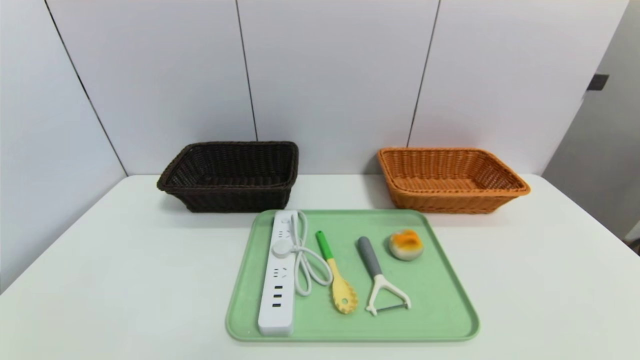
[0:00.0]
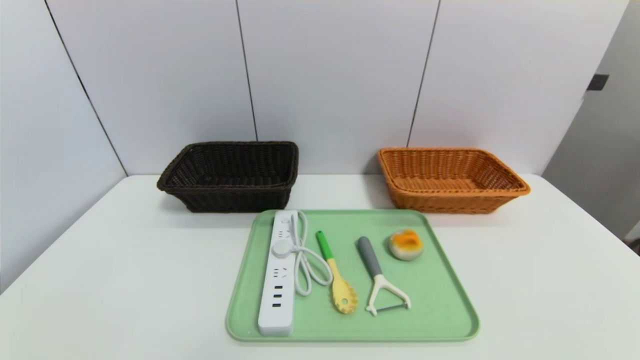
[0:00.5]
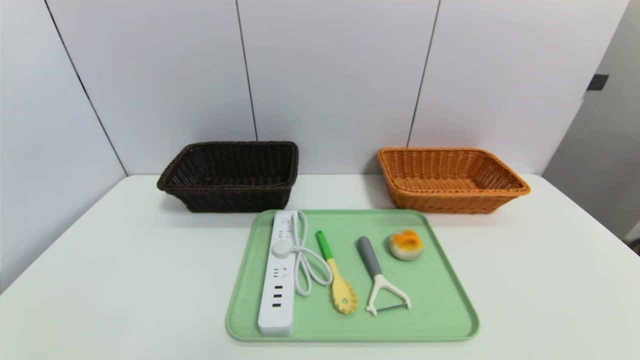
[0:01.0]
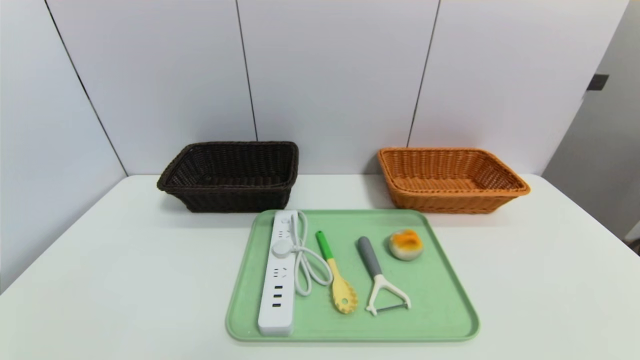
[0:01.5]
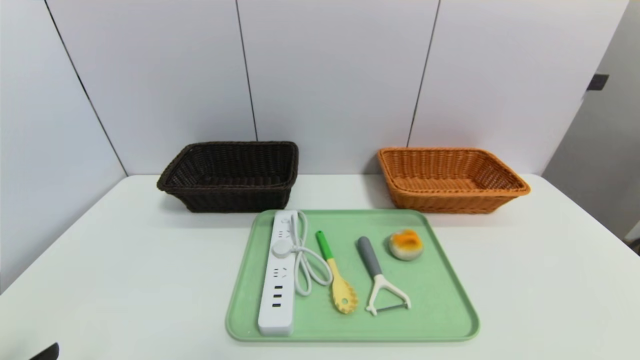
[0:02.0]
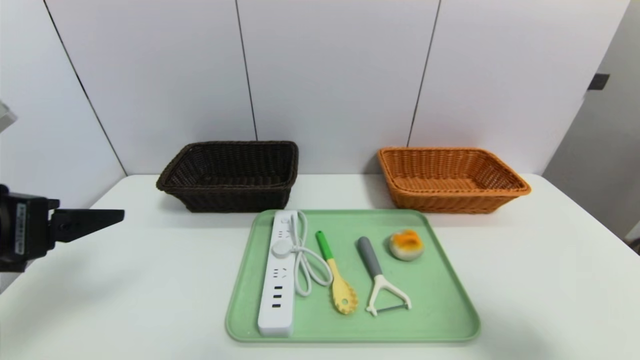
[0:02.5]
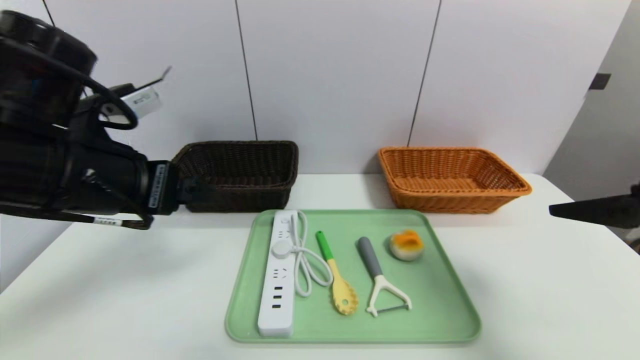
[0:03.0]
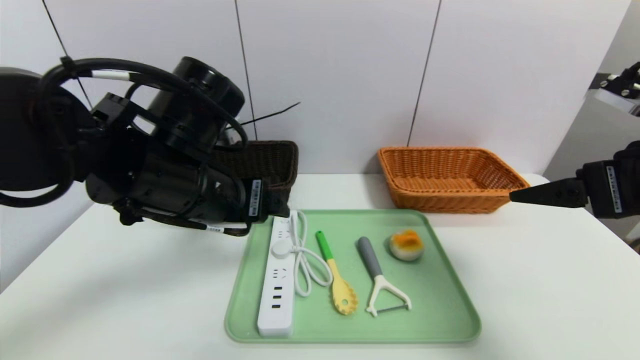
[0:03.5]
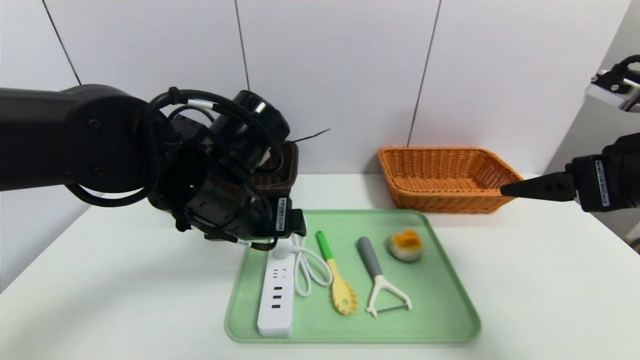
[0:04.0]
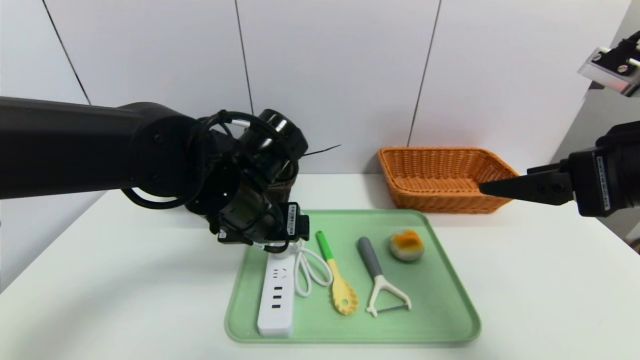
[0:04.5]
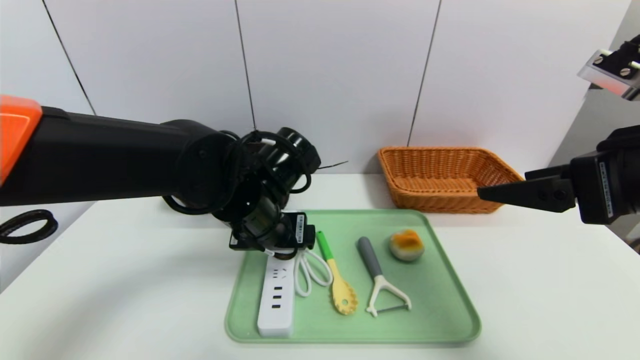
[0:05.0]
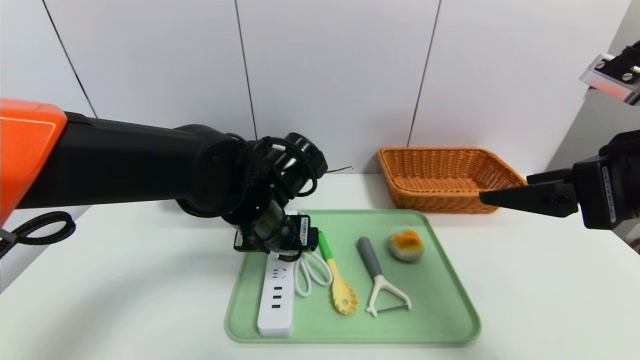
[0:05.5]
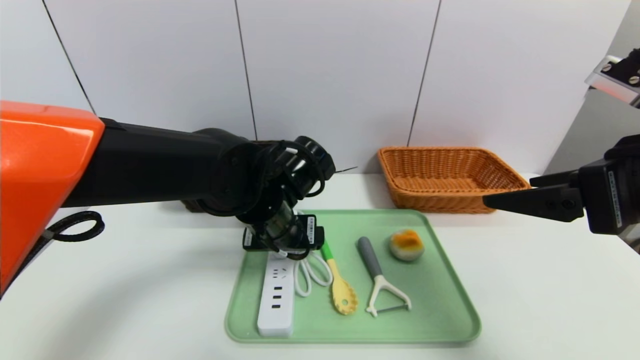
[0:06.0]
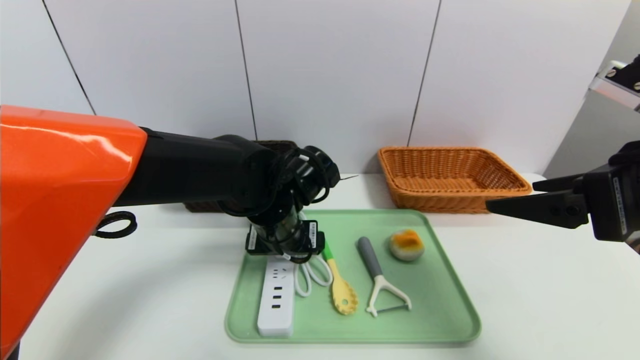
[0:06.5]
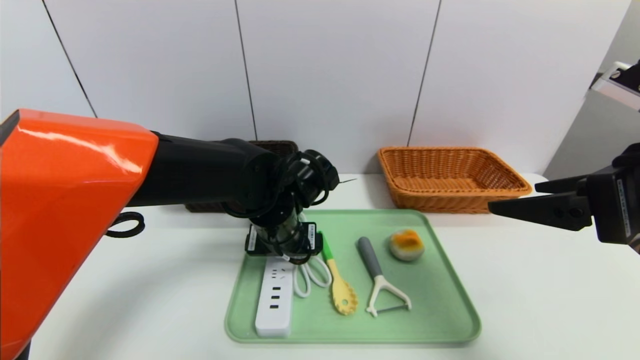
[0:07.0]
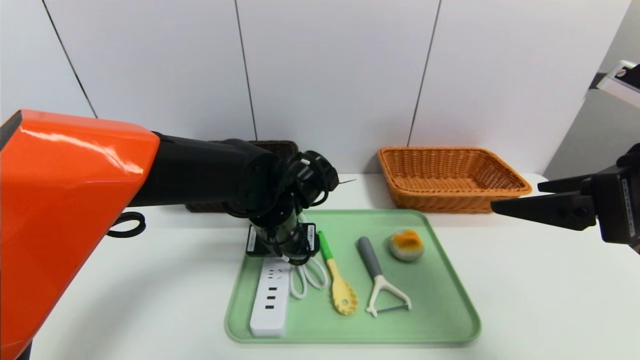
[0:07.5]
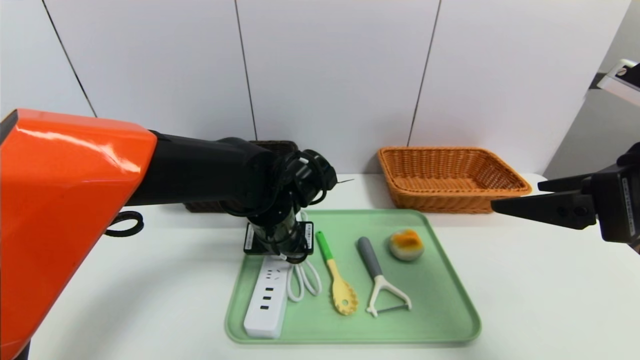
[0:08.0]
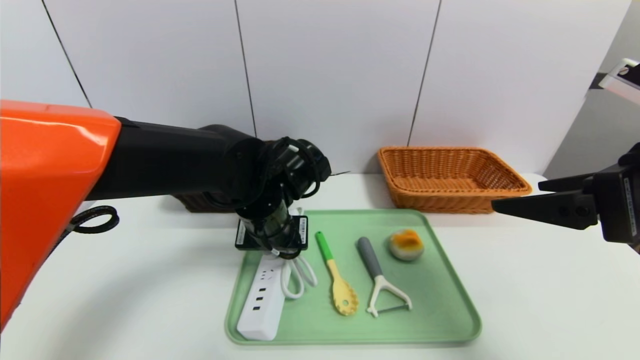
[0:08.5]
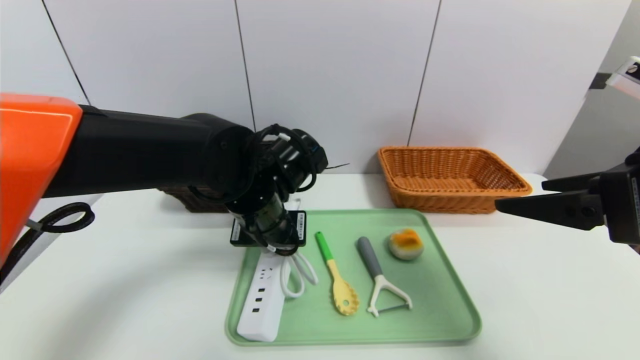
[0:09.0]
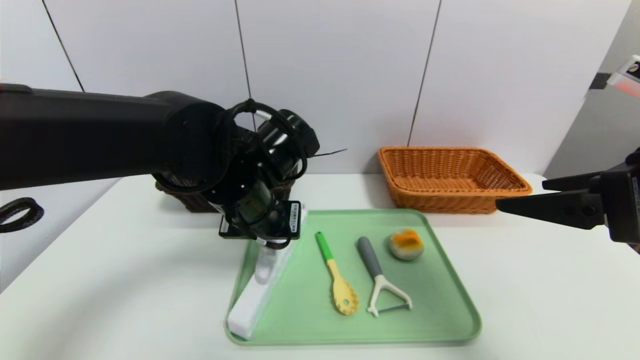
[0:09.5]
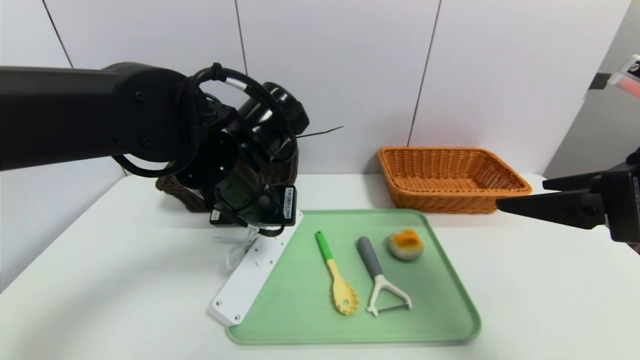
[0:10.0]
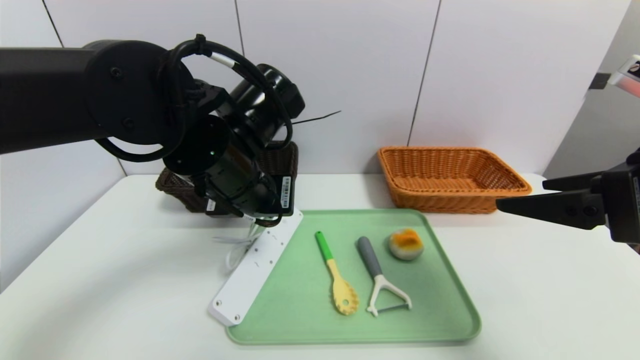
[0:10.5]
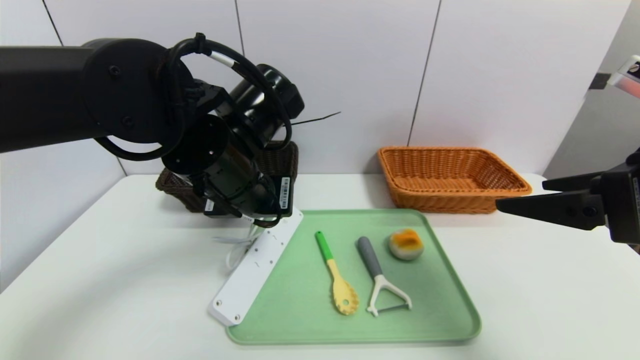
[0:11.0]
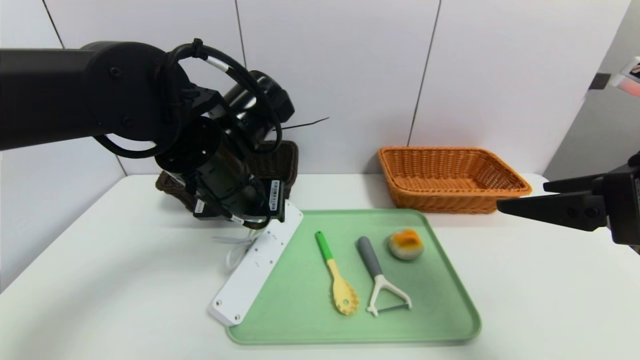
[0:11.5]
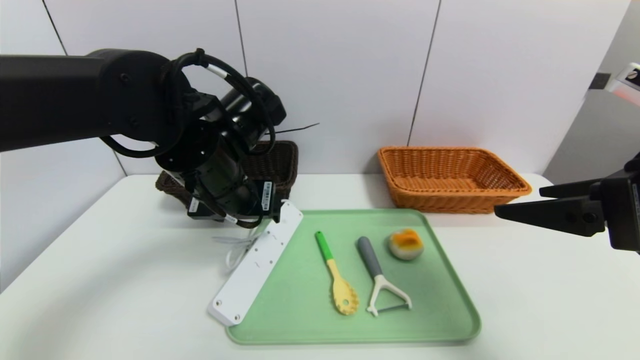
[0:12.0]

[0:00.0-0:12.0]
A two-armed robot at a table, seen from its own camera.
Task of the whole recording: place the food in the right basket with the right gripper, and place the non food items in the left basket with the left gripper.
0:02.0 to 0:04.0: The right gripper travels forward and upward by roughly 25 cm. Meanwhile the left gripper heads forward and to the right, covering some 30 cm.
0:04.0 to 0:06.0: The left gripper heads downward, covering about 5 cm.
0:06.0 to 0:08.0: The left gripper closes its fingers.
0:08.0 to 0:10.0: The left gripper is displaced upward by some 10 cm, and closes.
0:10.0 to 0:12.0: The left gripper opens its fingers.

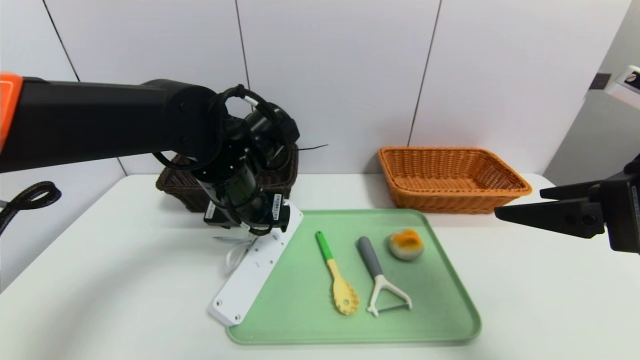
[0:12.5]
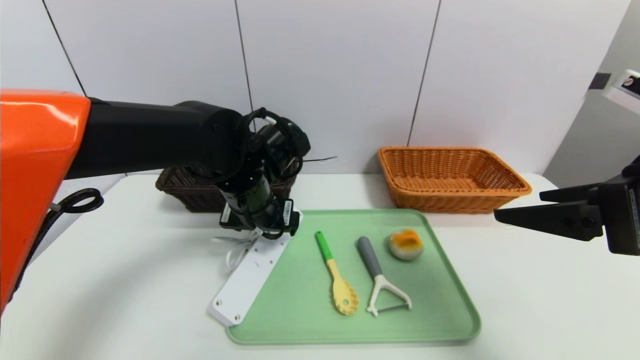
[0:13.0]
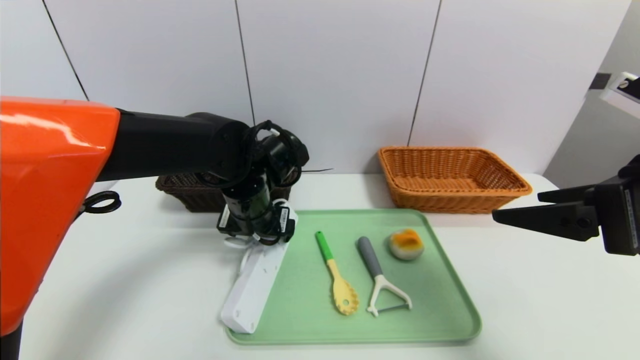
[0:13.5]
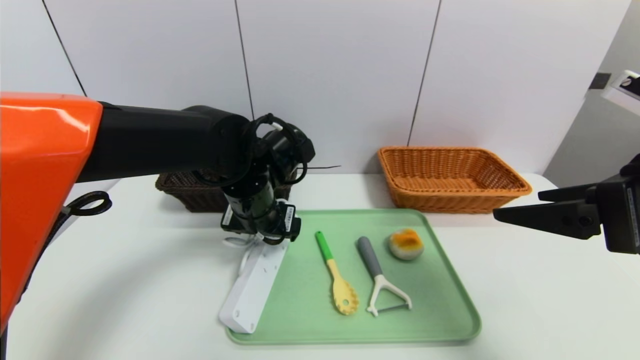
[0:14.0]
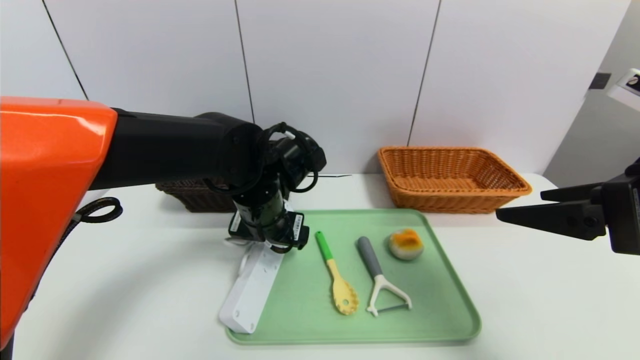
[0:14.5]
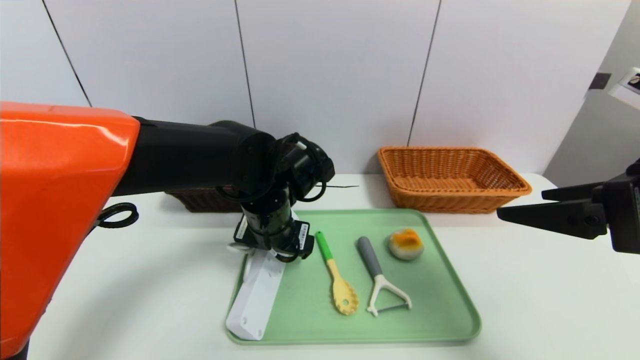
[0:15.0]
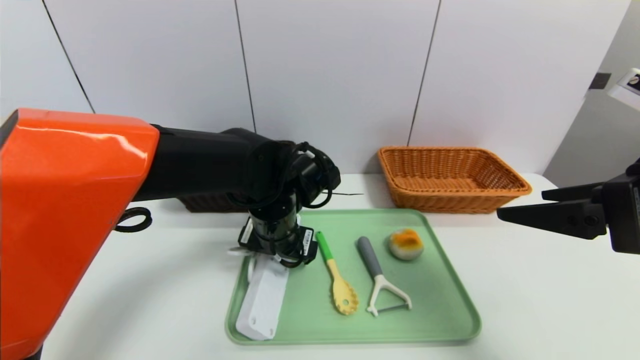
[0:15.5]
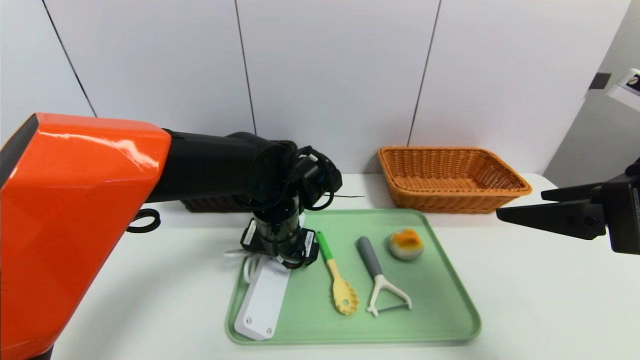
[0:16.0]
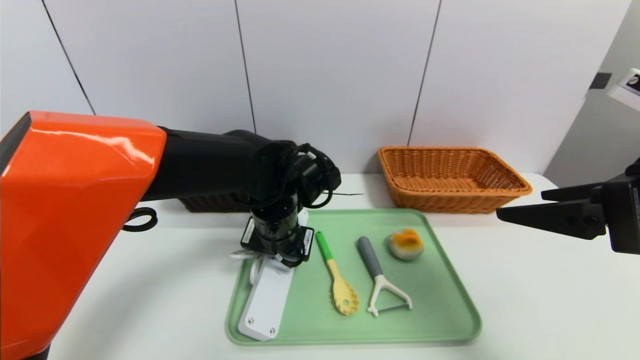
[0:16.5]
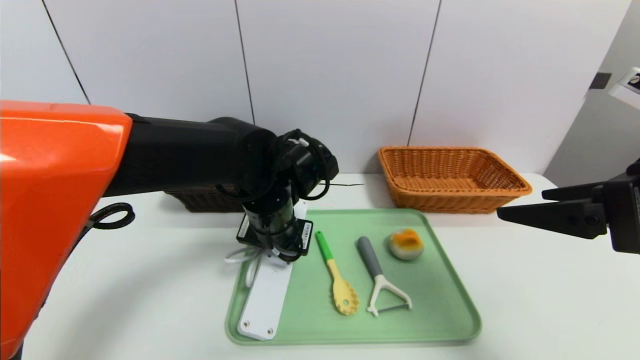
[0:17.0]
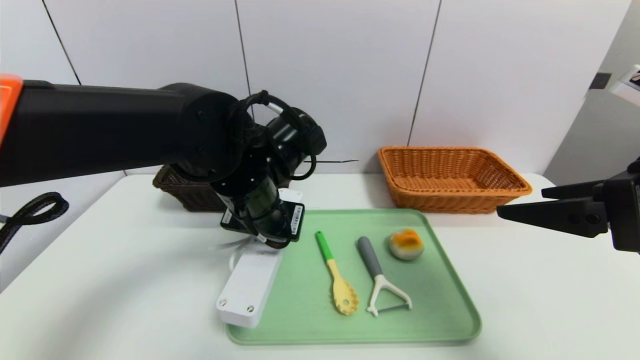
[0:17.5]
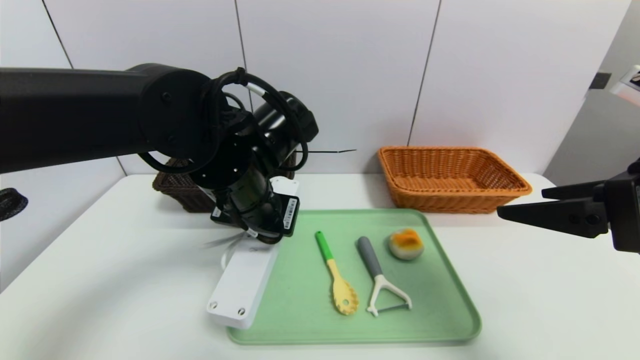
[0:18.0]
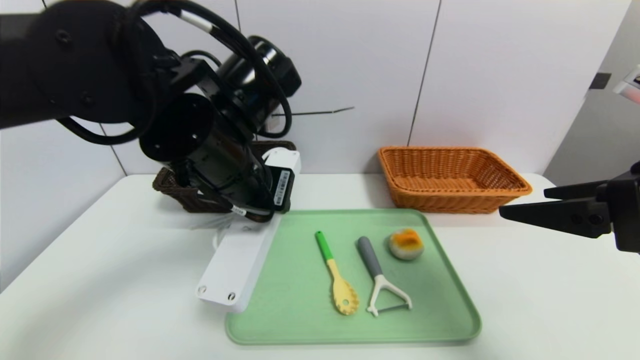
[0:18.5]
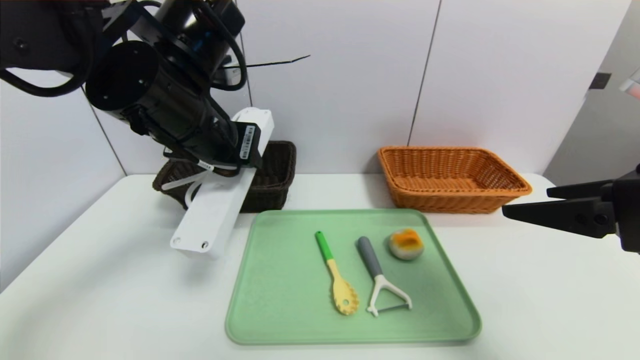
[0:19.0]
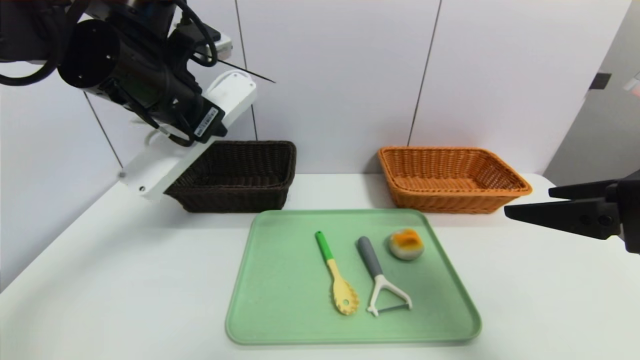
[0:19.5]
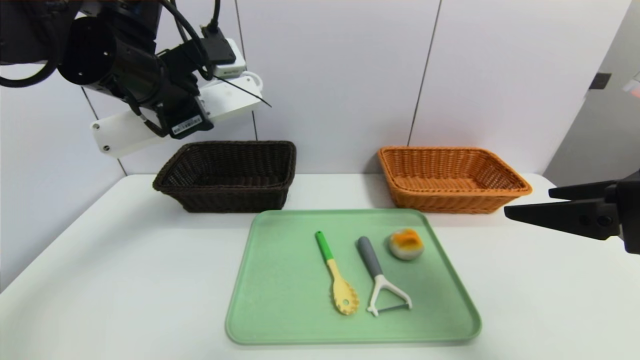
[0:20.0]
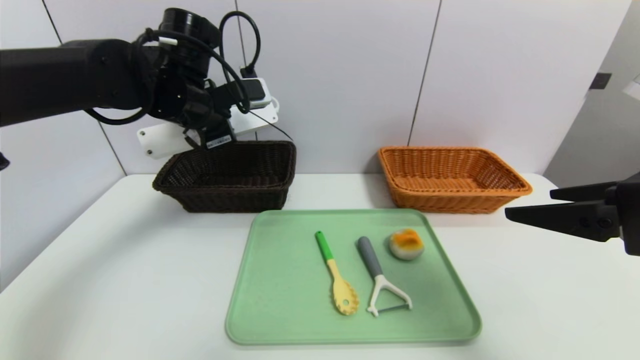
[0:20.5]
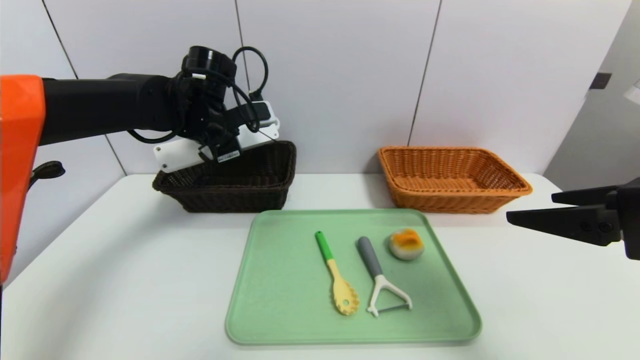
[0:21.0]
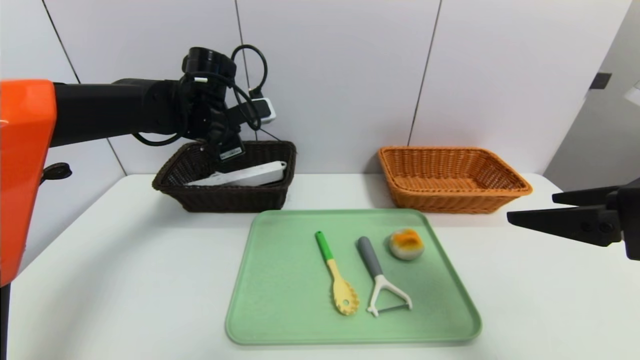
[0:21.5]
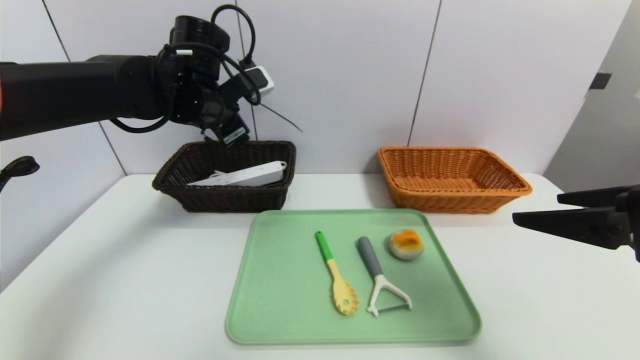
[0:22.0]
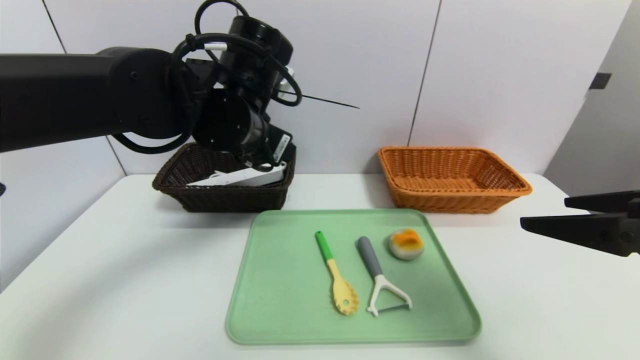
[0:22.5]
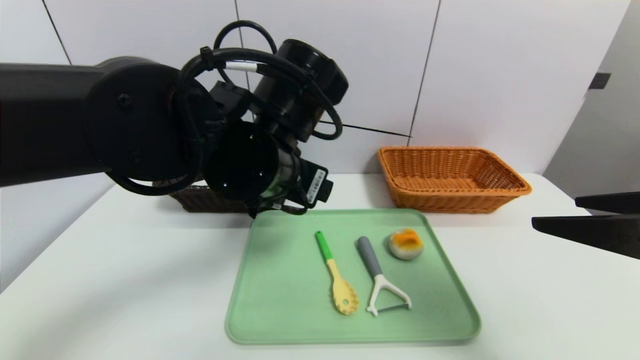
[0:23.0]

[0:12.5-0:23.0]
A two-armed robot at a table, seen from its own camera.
Task of the whole recording: place the food in the right basket with the right gripper, and place the non food items in the left basket with the left gripper.
Step, 0:12.5 to 0:21.5: Grasp the power strip and put it in the left basket.
0:12.5 to 0:14.5: The grippers make only small movements.
0:14.5 to 0:16.5: The grippers make only small movements.
0:16.5 to 0:19.0: The left gripper shifts approximately 20 cm upward and to the left.
0:19.0 to 0:21.0: The left gripper heads forward and downward, covering some 15 cm.
0:21.0 to 0:23.0: The left gripper shifts some 20 cm backward and to the right, and opens its fingers.
